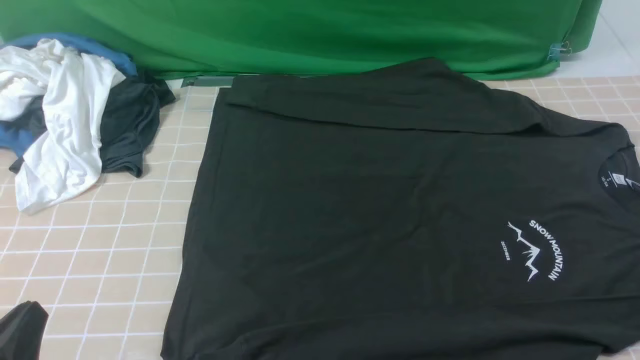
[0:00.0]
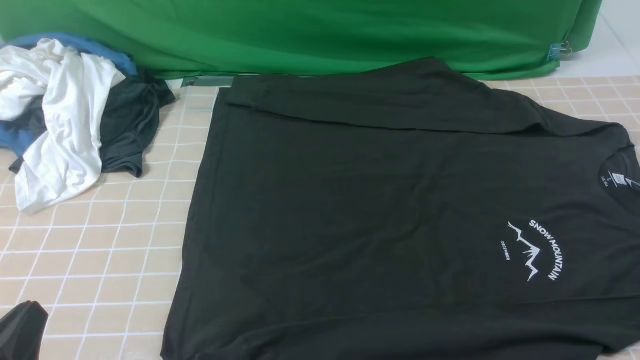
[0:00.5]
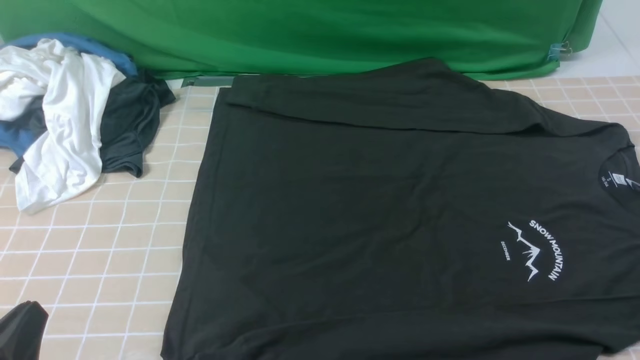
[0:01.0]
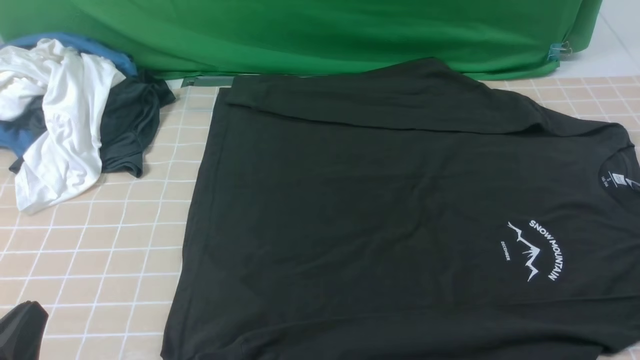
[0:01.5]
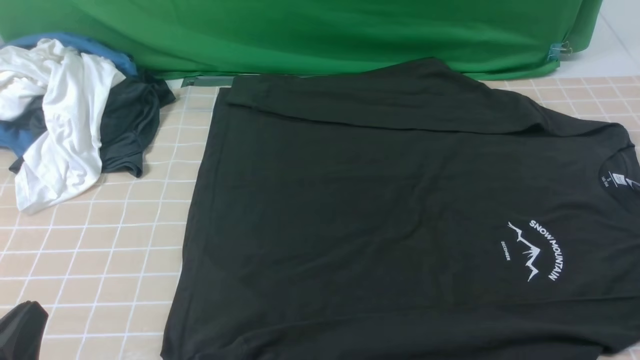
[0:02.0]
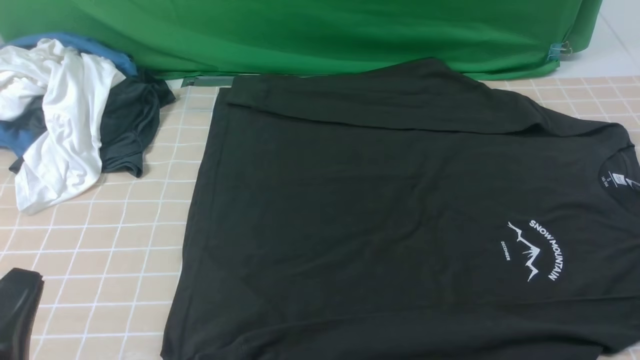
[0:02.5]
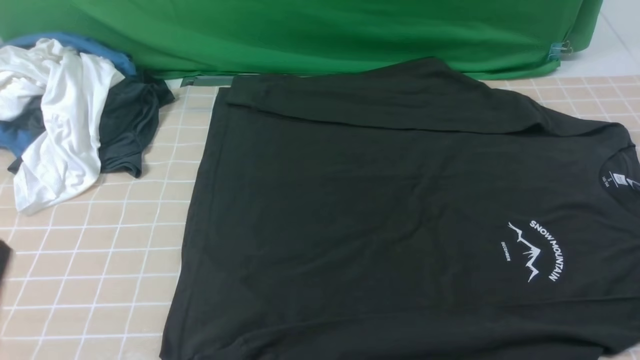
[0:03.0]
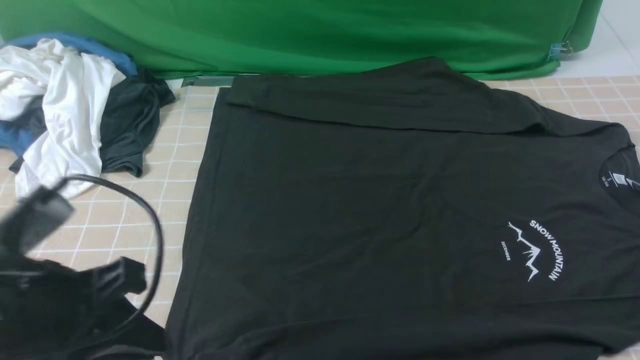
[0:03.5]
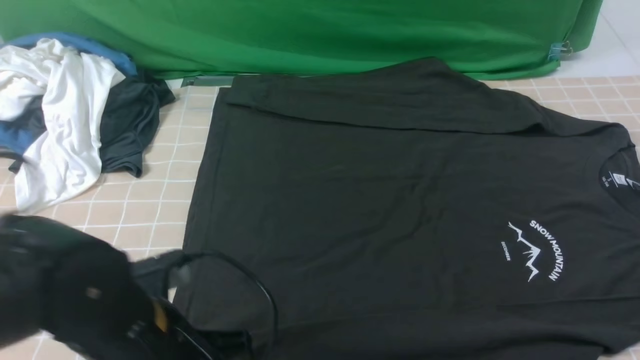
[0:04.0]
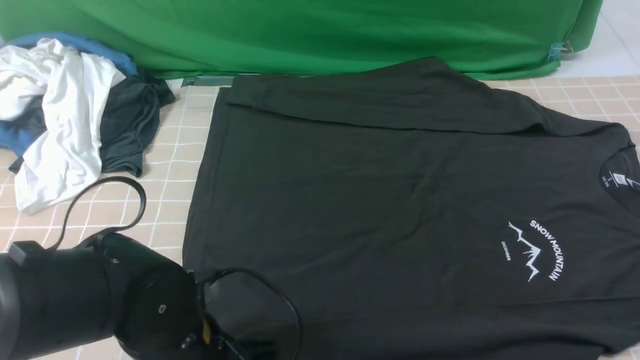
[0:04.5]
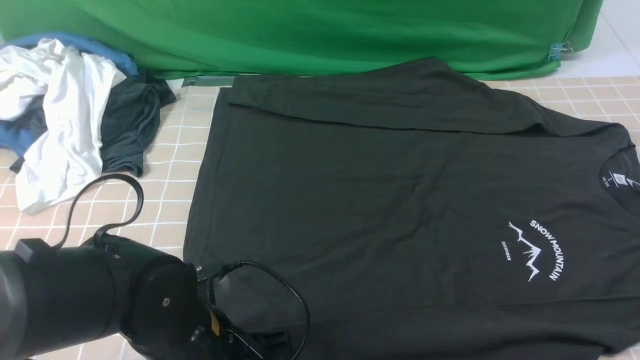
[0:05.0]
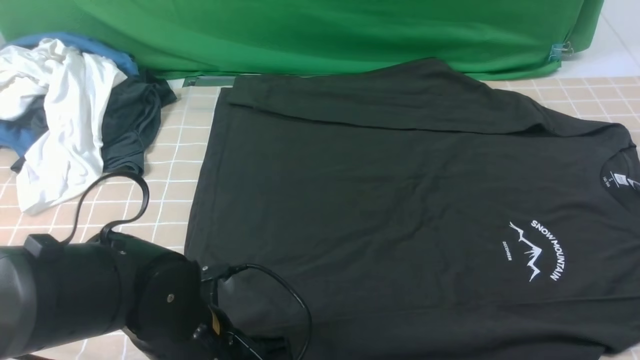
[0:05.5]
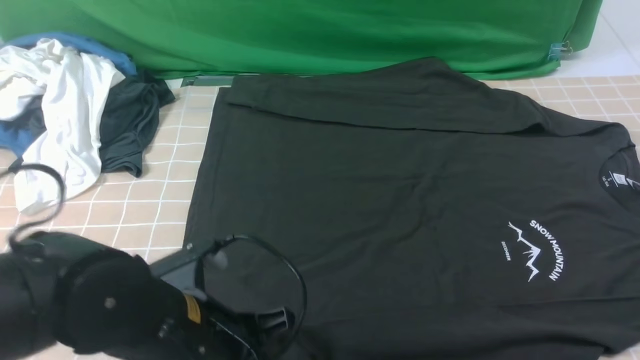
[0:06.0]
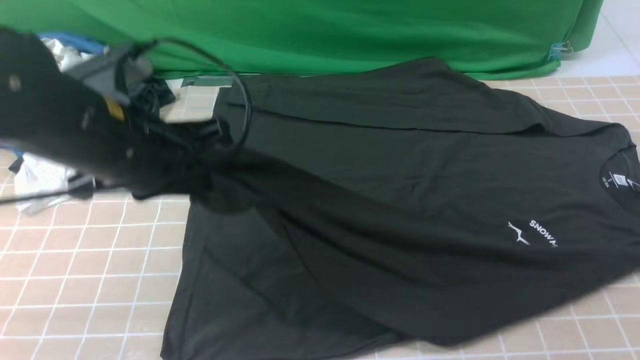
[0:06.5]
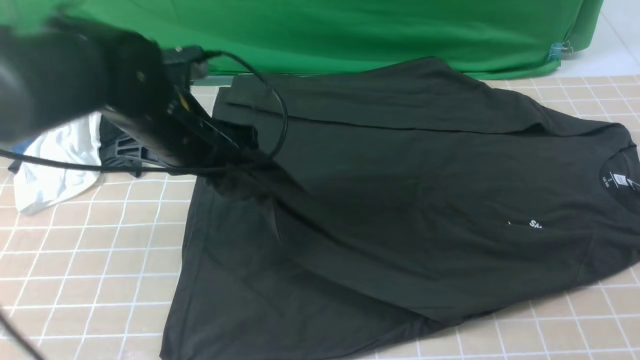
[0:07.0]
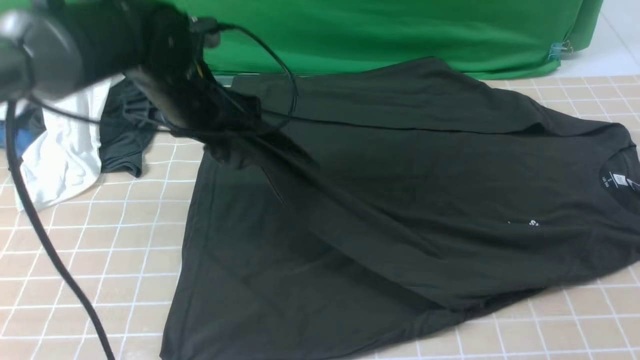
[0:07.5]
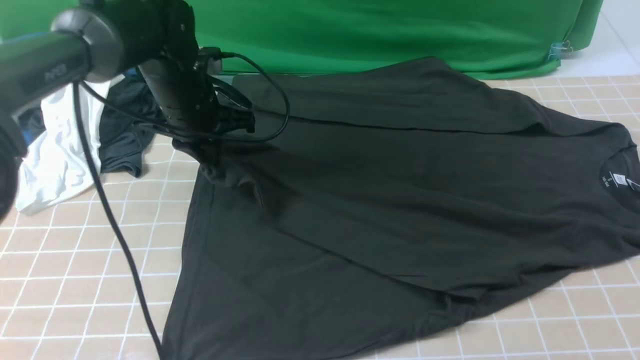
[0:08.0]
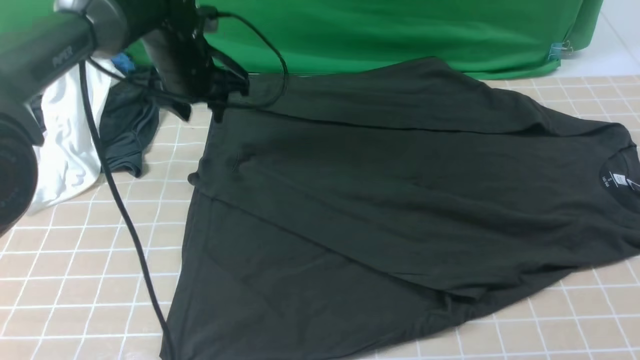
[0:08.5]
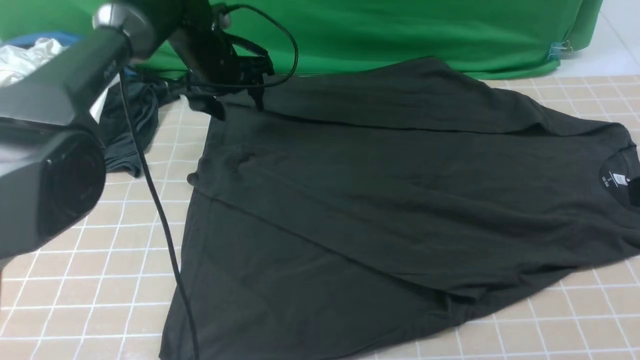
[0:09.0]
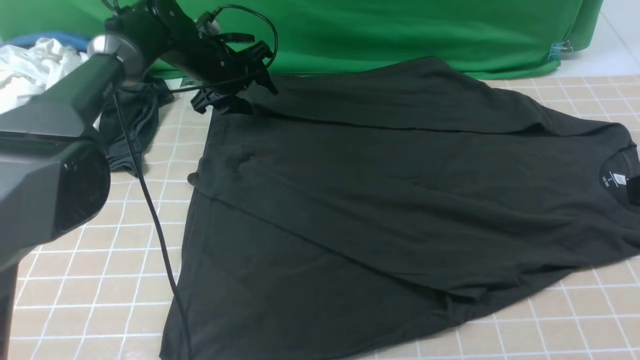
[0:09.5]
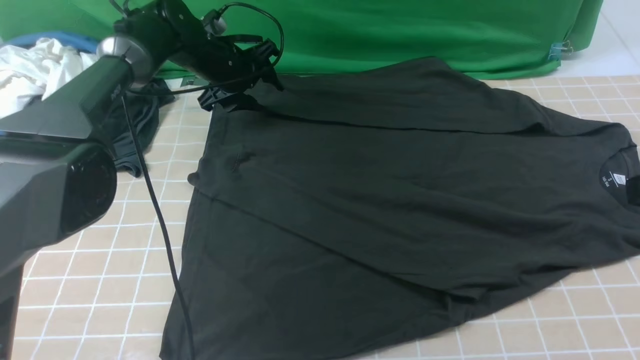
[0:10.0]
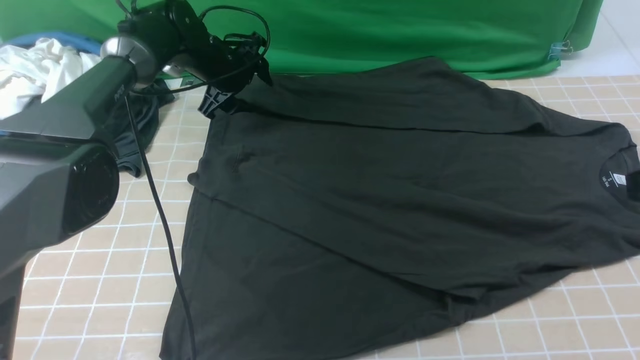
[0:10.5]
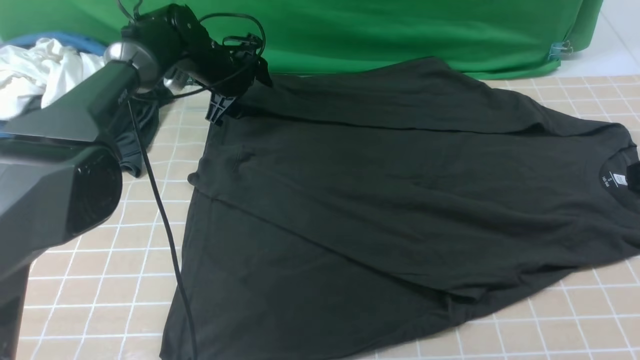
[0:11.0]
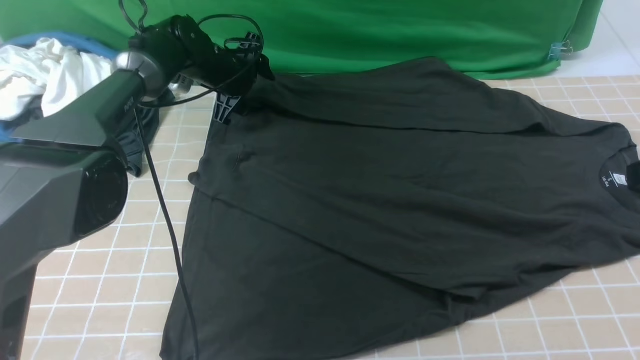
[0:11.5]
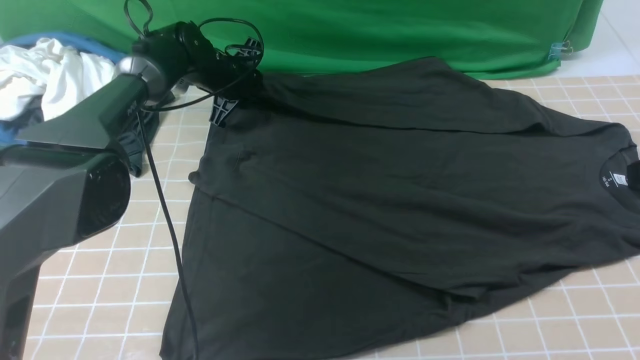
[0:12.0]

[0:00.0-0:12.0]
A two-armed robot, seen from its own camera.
Step, 0:00.0 to 0:04.5: use the left arm to clamp the cuff closest to it.
Step, 0:05.0 to 0:08.0: use the left arm to drag and place the cuff at the centered position on the left edge of the fabric.
0:00.0 to 0:02.0: Neither gripper changes place.
0:02.0 to 0:04.0: The left gripper travels to the right and forward by approximately 15 cm.
0:04.0 to 0:06.0: The left gripper opens, then closes once more.
0:06.0 to 0:08.0: The left gripper goes approximately 25 cm forward.
0:08.0 to 0:10.0: The left gripper travels forward by roughly 10 cm, and opens up.
0:10.0 to 0:12.0: The left gripper closes.

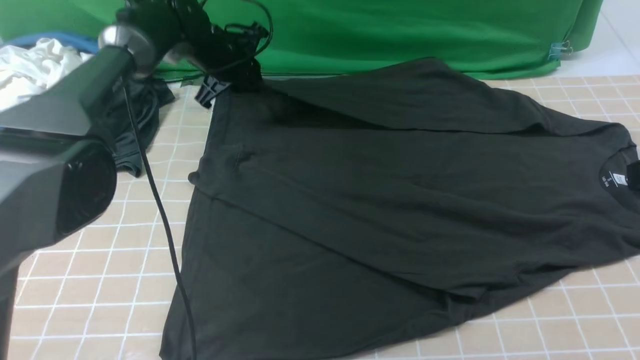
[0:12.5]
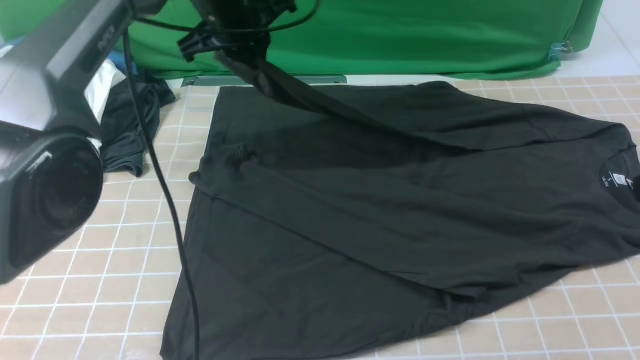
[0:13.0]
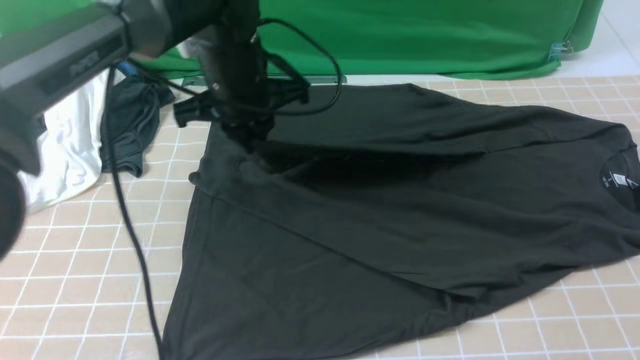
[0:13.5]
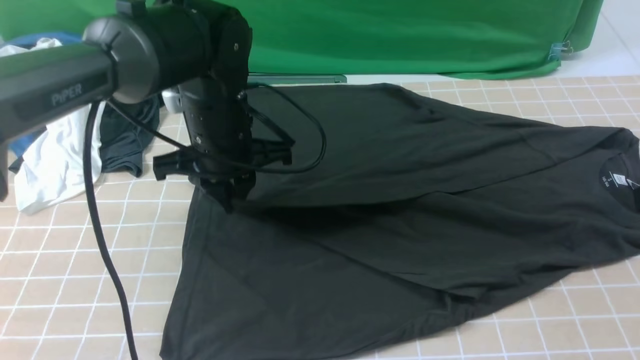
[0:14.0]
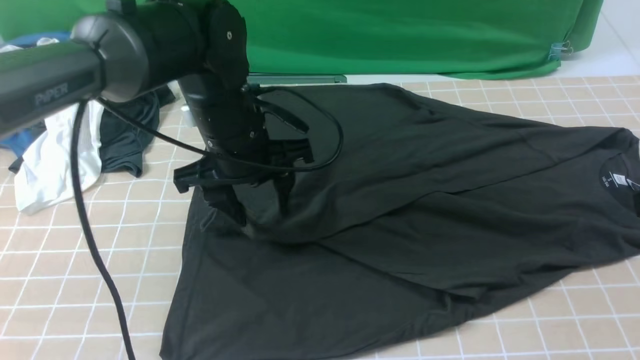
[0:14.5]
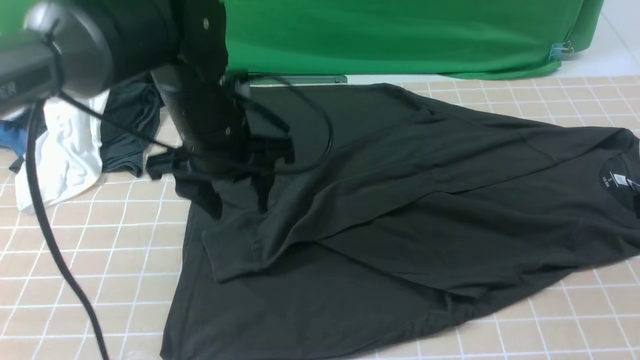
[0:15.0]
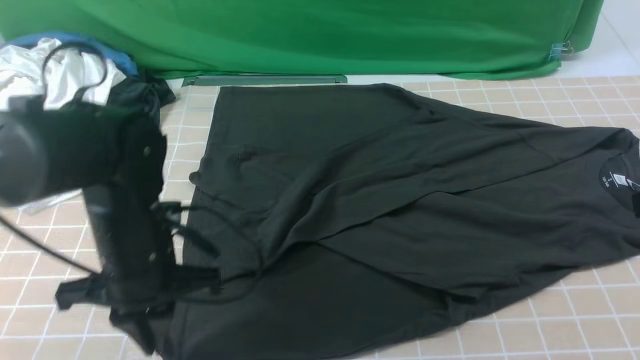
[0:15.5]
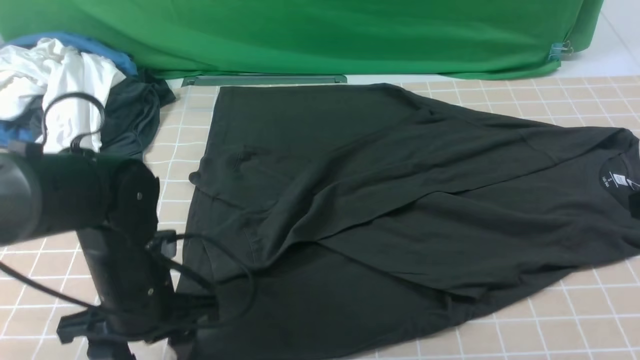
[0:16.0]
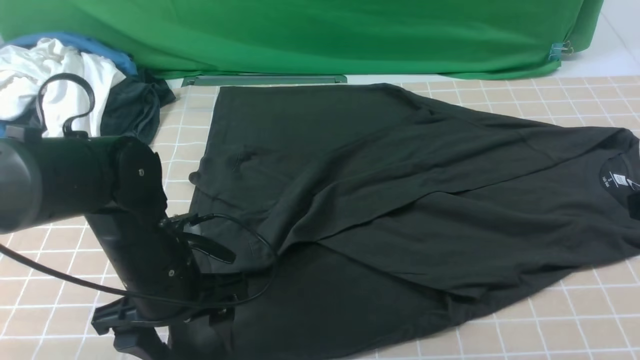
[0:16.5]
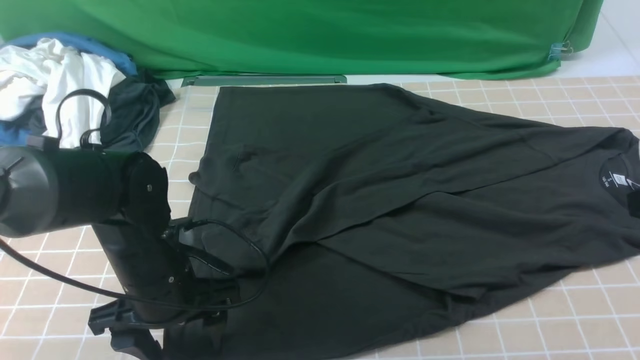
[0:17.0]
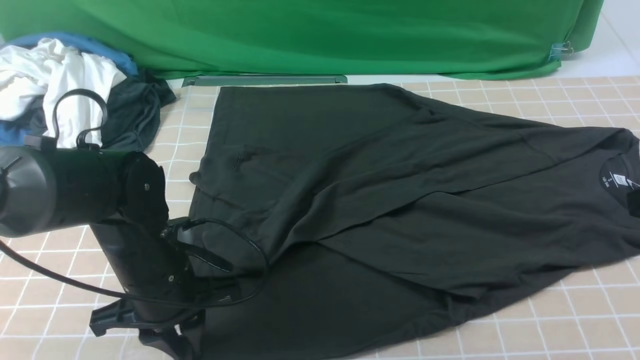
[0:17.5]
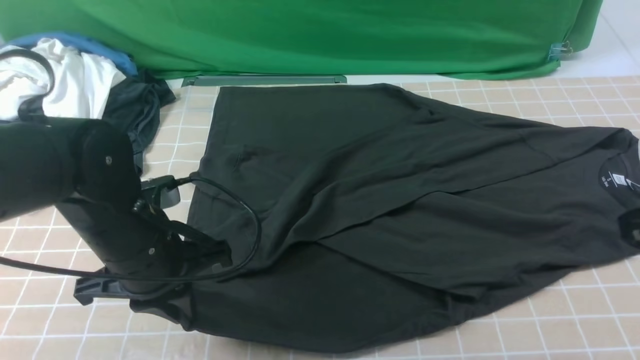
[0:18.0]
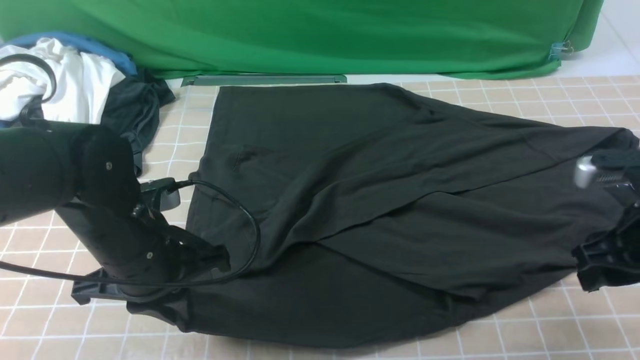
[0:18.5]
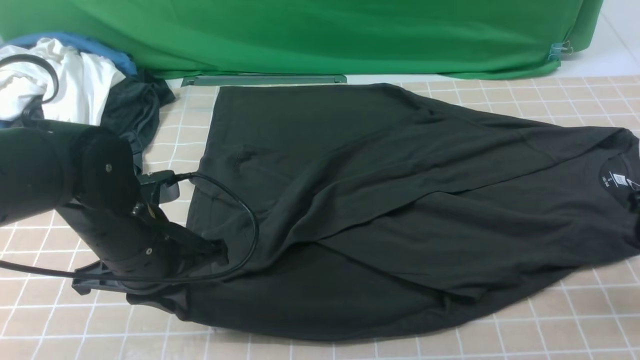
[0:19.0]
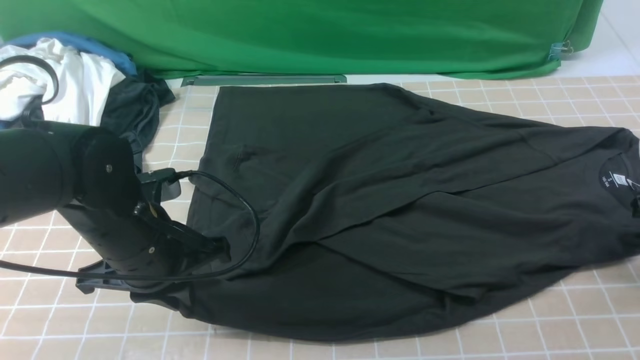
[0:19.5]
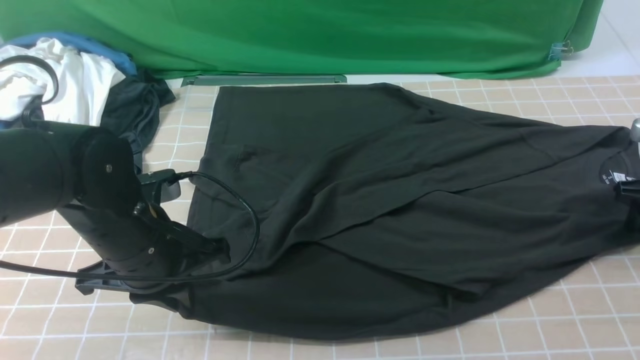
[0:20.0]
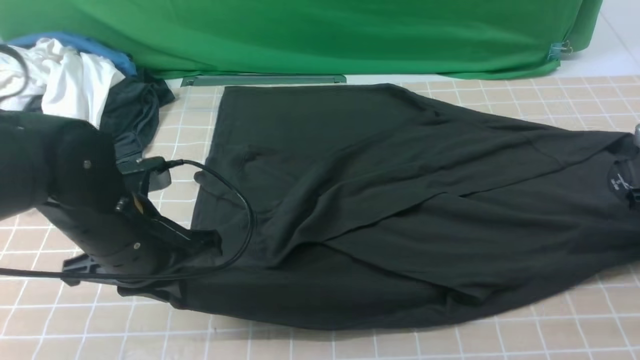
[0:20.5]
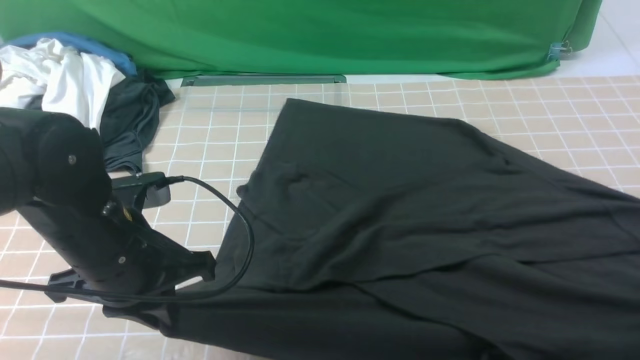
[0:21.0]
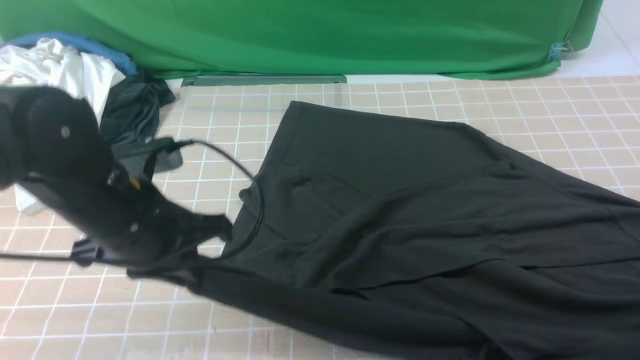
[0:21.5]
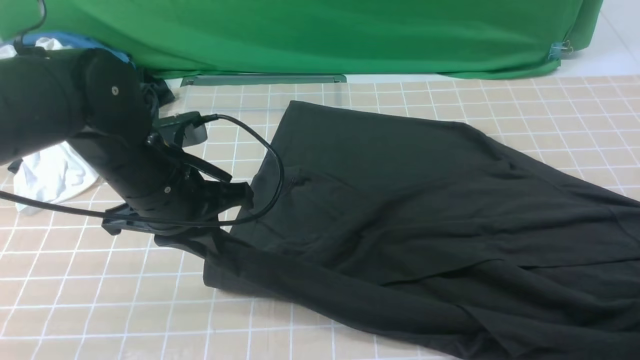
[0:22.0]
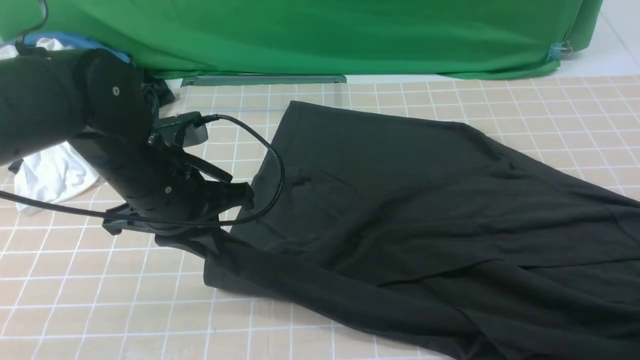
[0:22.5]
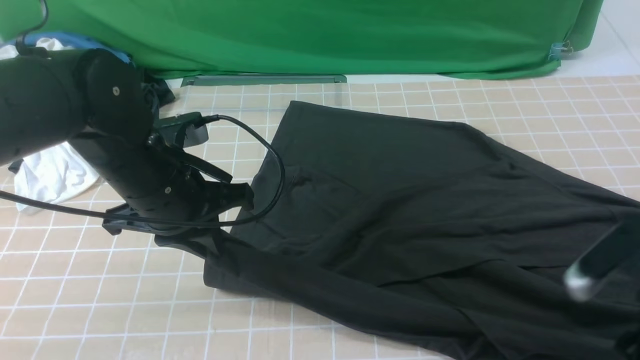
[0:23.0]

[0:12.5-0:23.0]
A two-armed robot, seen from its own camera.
Step, 0:12.5 to 0:14.5: use the left arm to drag and drop the cuff onto the cuff closest to the left arm.
0:12.5 to 0:14.5: The left gripper travels backward by approximately 20 cm, and opens its fingers.
0:14.5 to 0:16.5: The left gripper goes some 15 cm backward, downward and to the left, and closes and opens again.
0:16.5 to 0:19.0: The right gripper moves forward, downward and to the right, about 15 cm, and opens its fingers. The left gripper closes up.
0:19.0 to 0:21.0: The right gripper goes roughly 5 cm backward, and closes.
0:21.0 to 0:23.0: The right gripper heads to the left, covering about 10 cm, and opens. The left gripper is displaced forward by roughly 5 cm.
